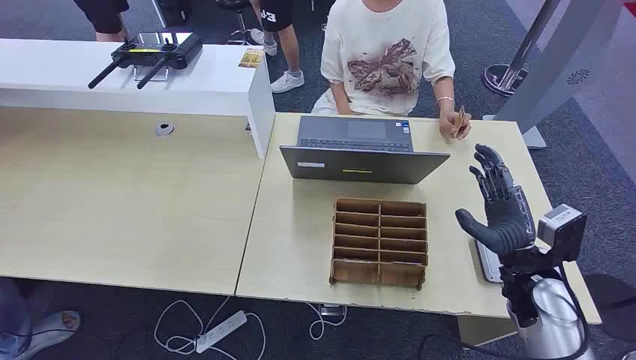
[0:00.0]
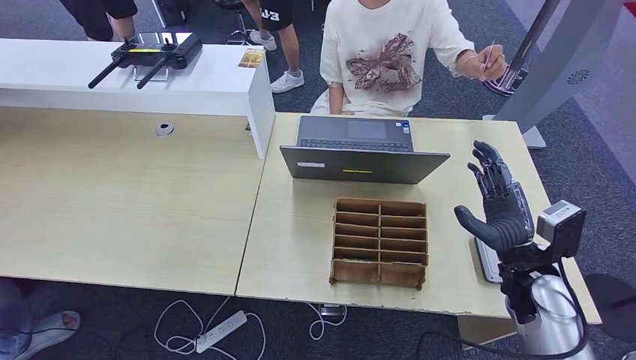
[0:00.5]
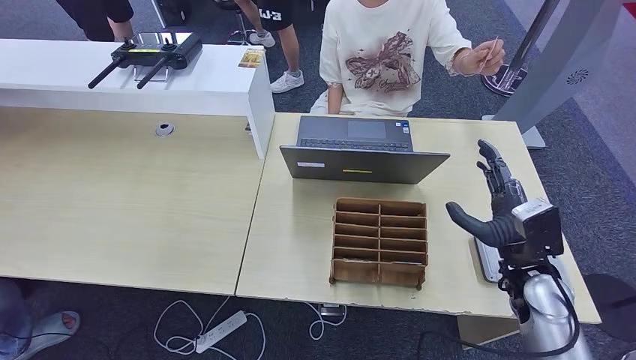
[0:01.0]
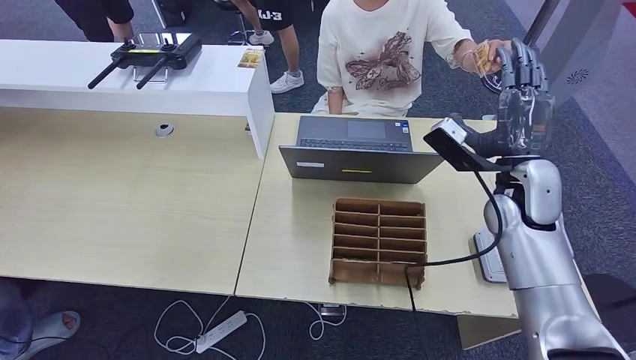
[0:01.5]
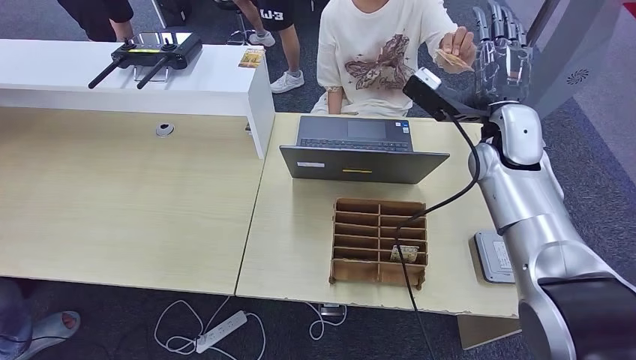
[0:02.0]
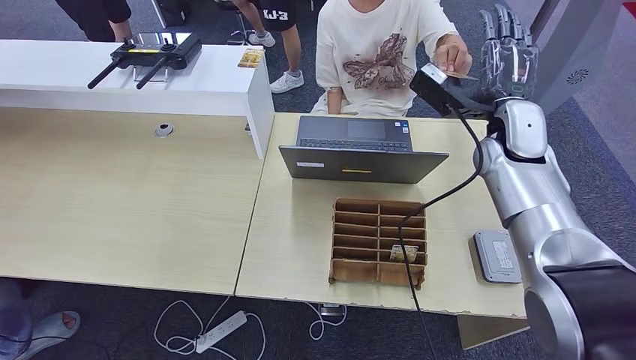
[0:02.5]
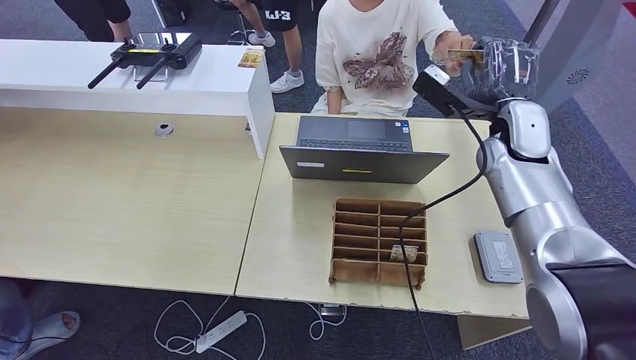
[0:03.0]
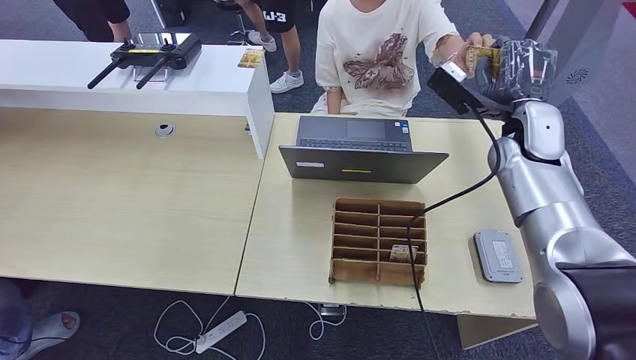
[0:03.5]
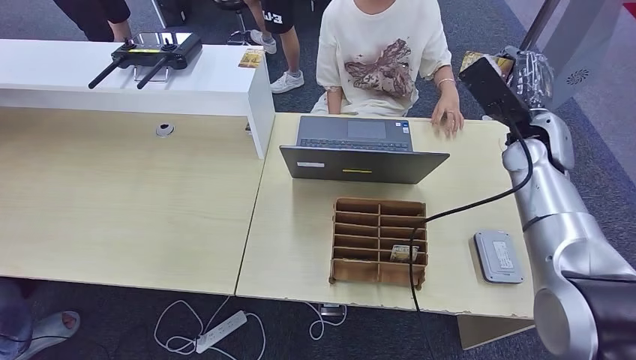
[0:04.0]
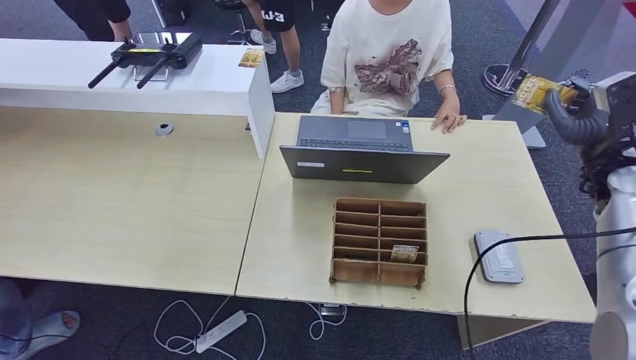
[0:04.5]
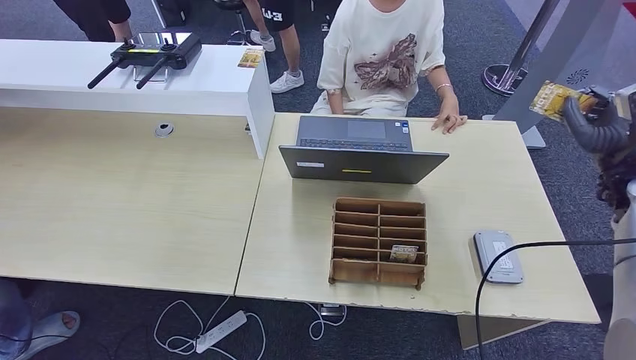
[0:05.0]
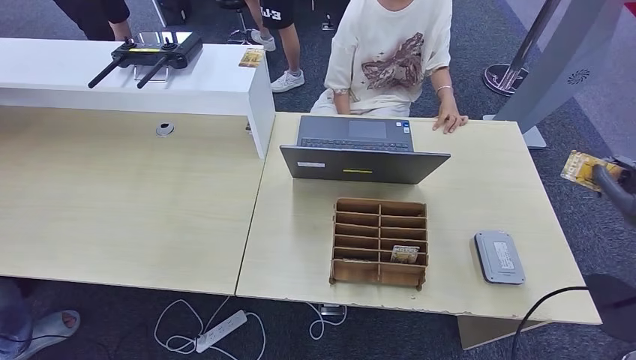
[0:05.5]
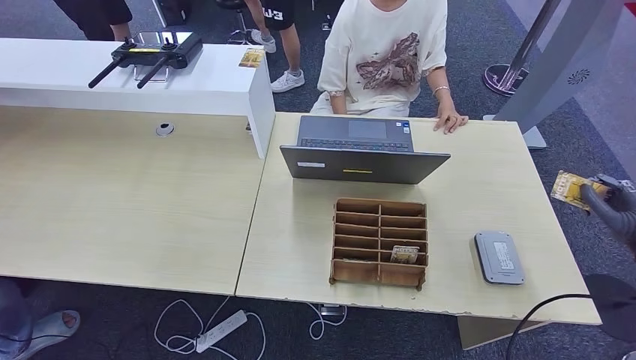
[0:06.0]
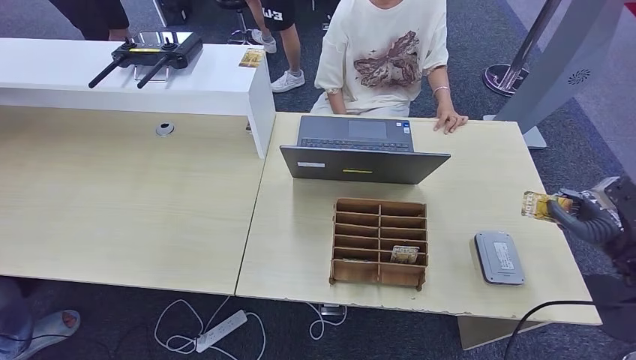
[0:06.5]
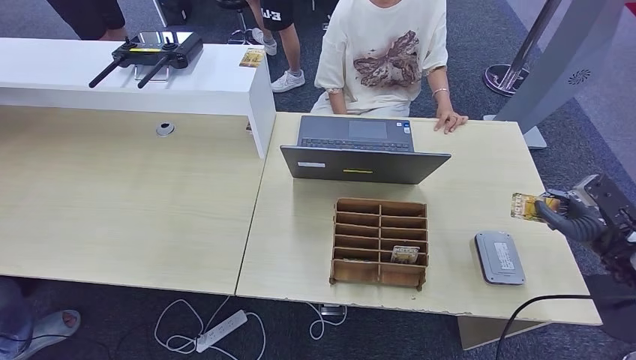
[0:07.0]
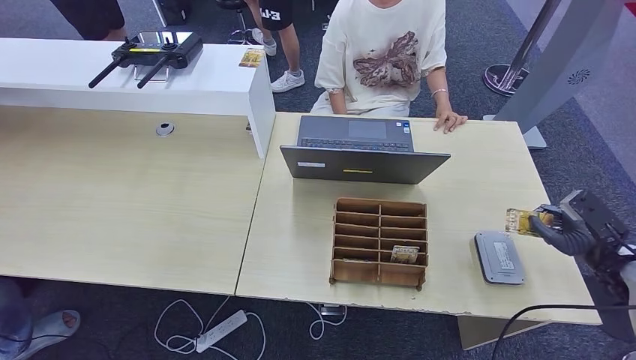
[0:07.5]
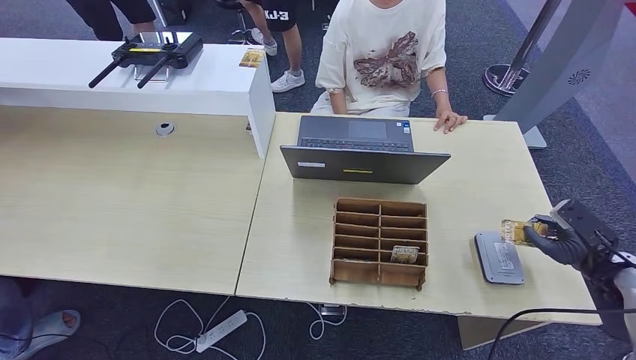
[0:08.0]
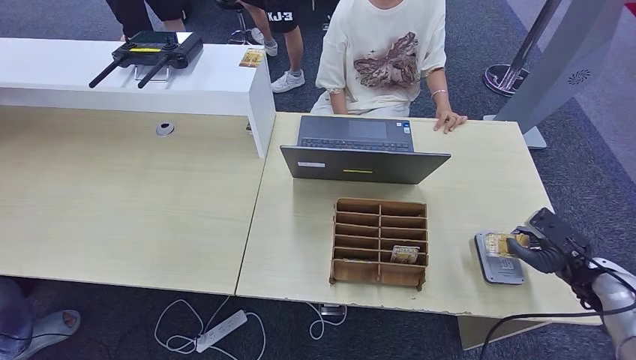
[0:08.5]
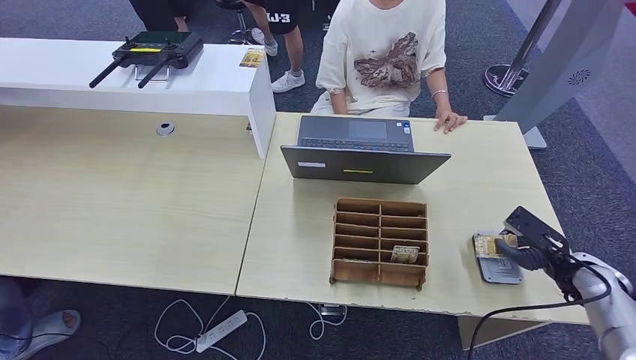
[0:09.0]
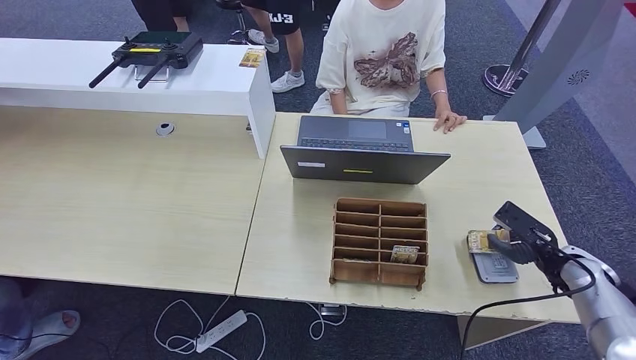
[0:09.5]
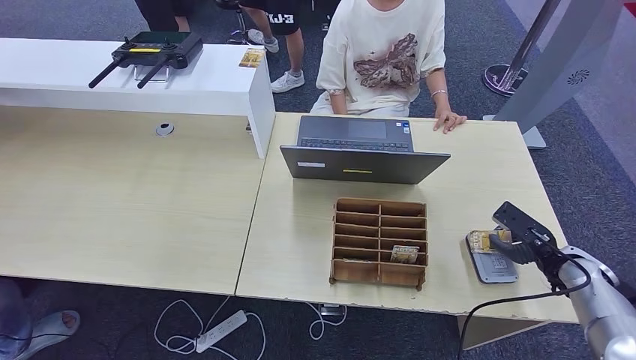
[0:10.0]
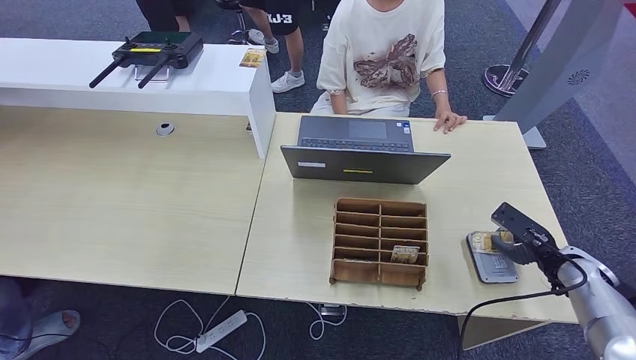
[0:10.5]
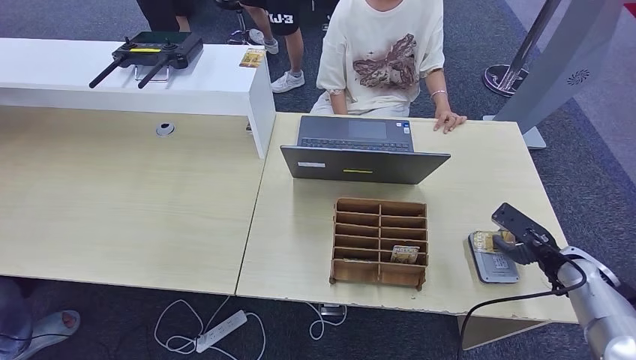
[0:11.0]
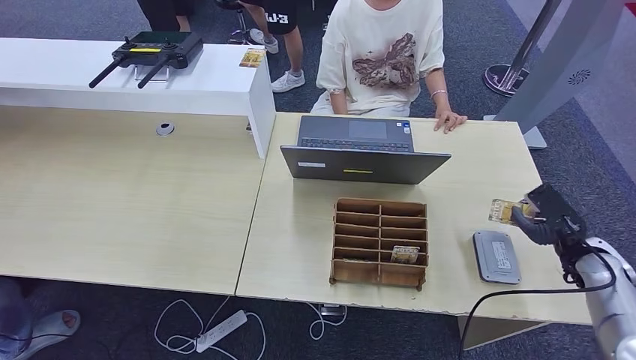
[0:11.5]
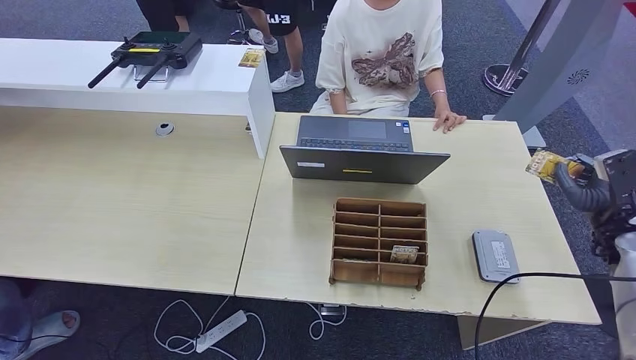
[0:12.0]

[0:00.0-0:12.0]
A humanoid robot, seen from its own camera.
Step, 0:00.0 to 0:04.5: Take the ID card from the person's hand.
Step, 0:05.0 to 0:10.5: Place the ID card on the card reader.
0:02.0 to 0:04.0: The right hand moves to the right, about 5 cm.
0:04.0 to 0:06.0: The right hand is displaced to the right, backward and downward by approximately 30 cm.
0:06.0 to 0:08.0: The right hand heads downward, covering roughly 5 cm.
0:08.0 to 0:10.0: The right hand heads to the left, covering roughly 5 cm.
0:10.0 to 0:12.0: The right hand shifts approximately 10 cm upward.

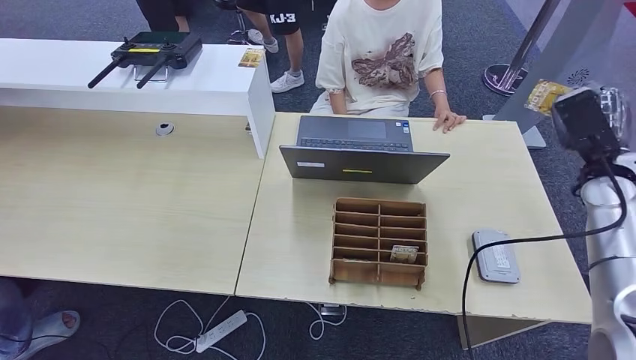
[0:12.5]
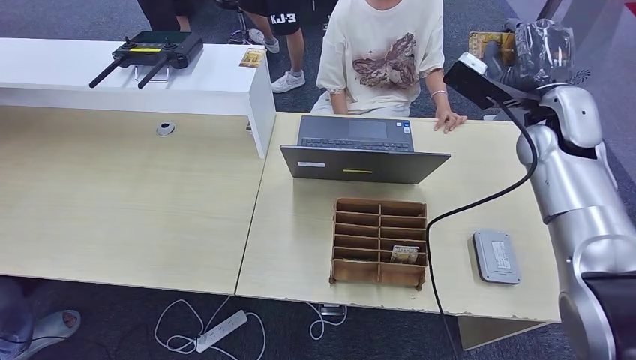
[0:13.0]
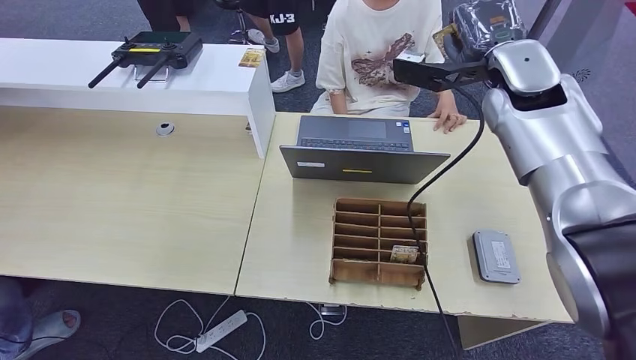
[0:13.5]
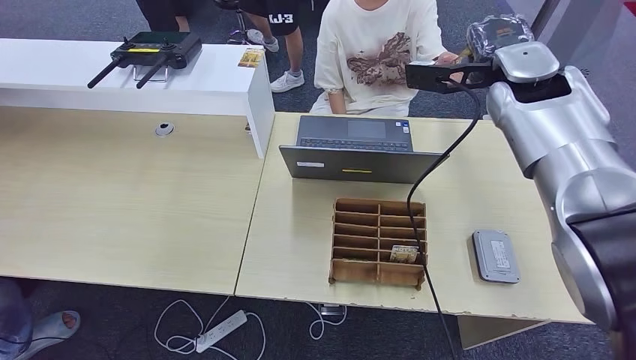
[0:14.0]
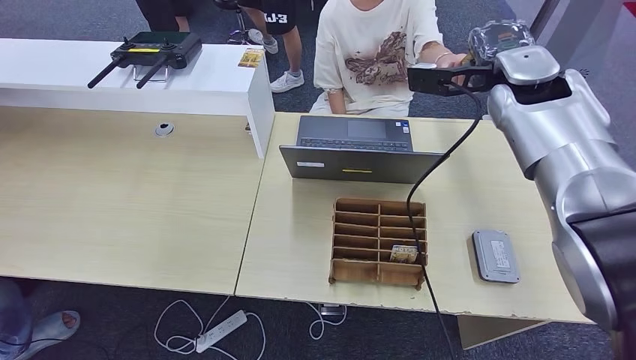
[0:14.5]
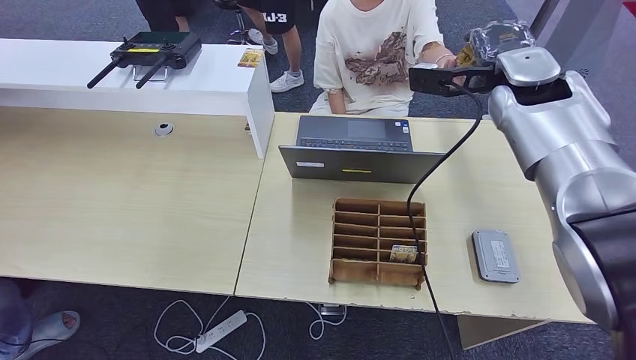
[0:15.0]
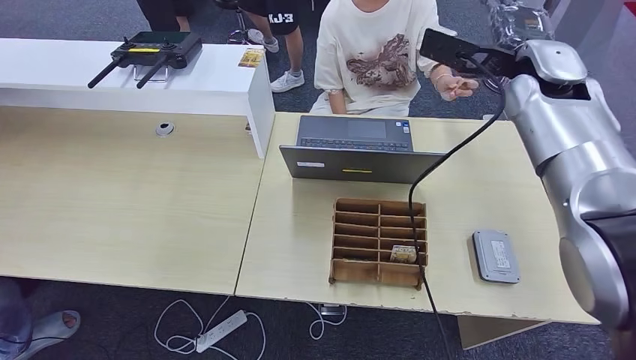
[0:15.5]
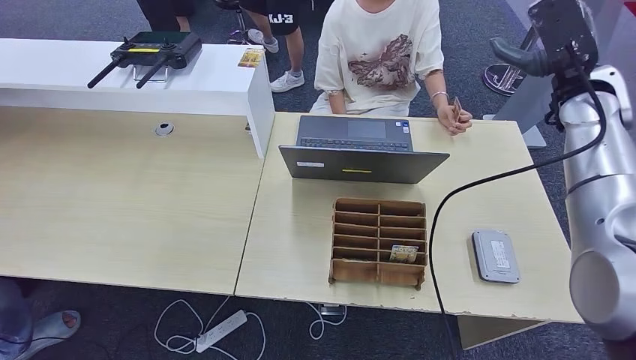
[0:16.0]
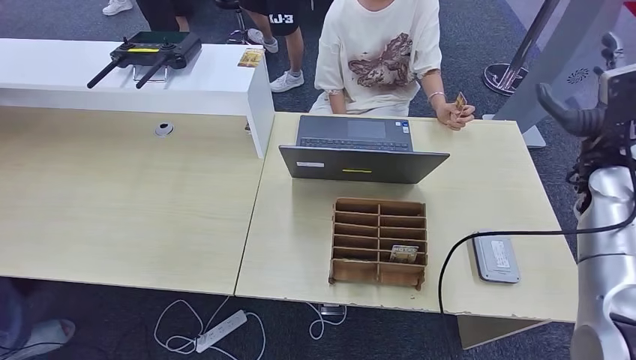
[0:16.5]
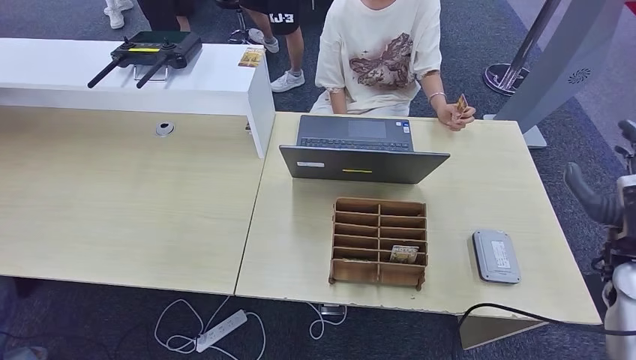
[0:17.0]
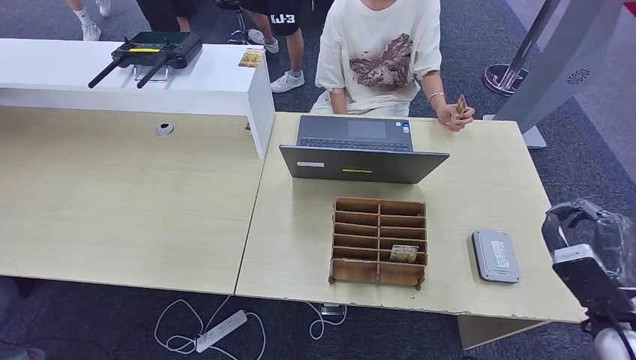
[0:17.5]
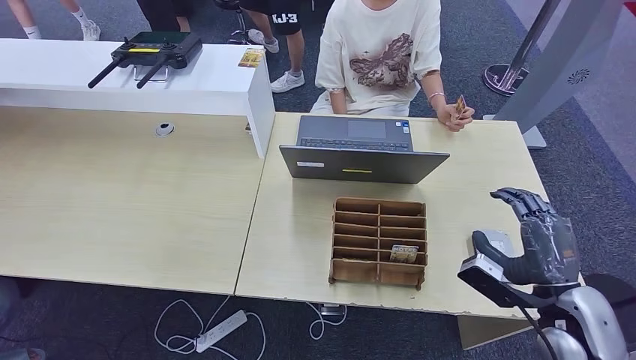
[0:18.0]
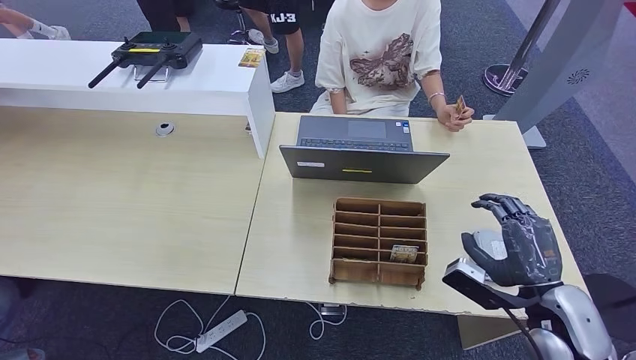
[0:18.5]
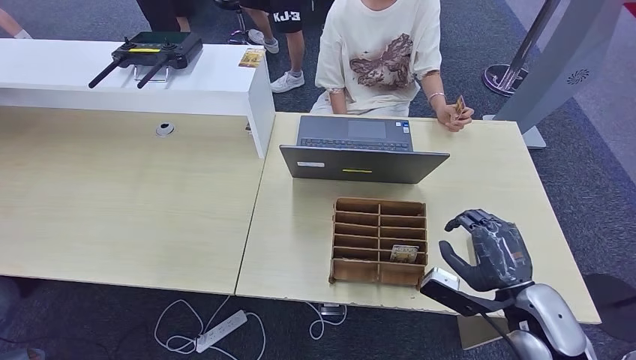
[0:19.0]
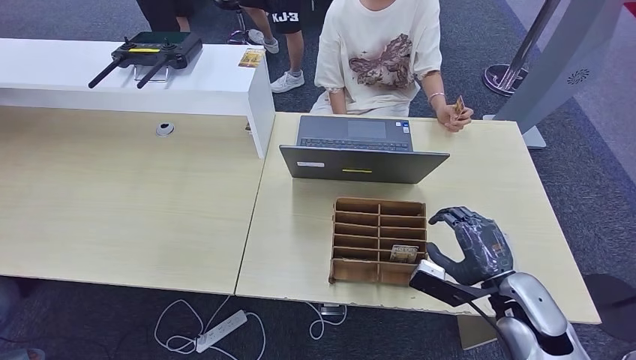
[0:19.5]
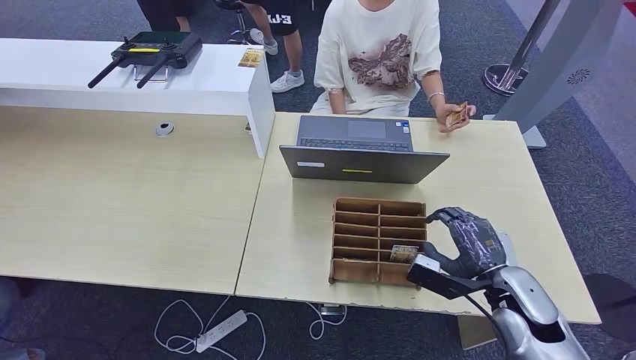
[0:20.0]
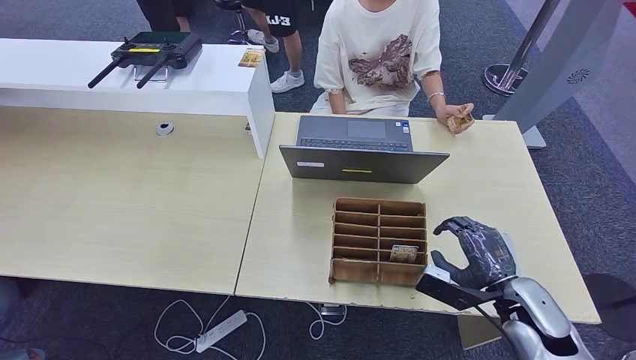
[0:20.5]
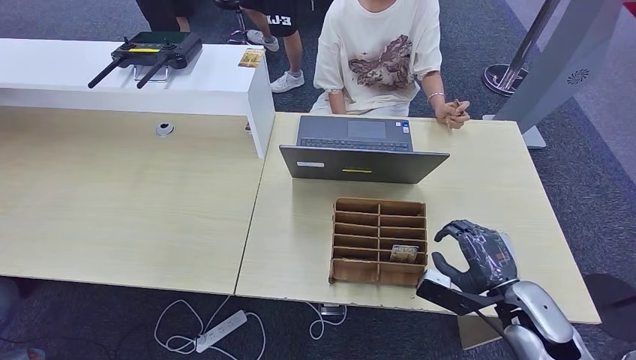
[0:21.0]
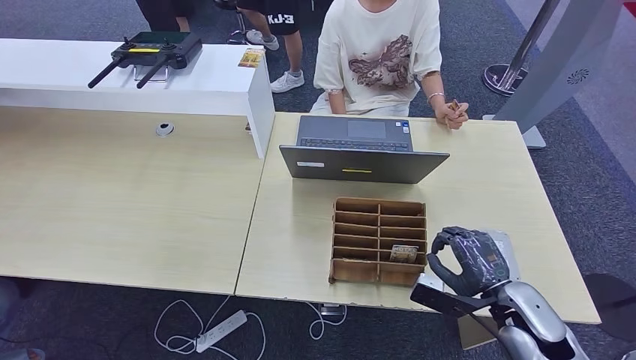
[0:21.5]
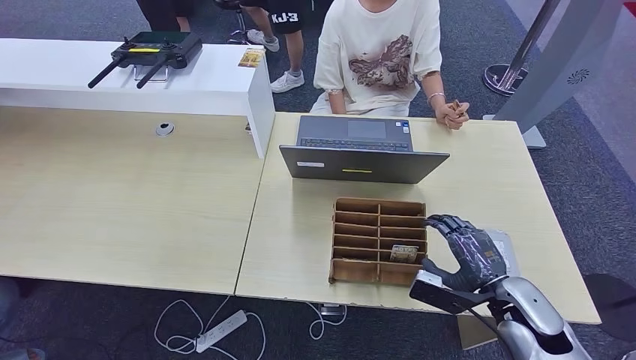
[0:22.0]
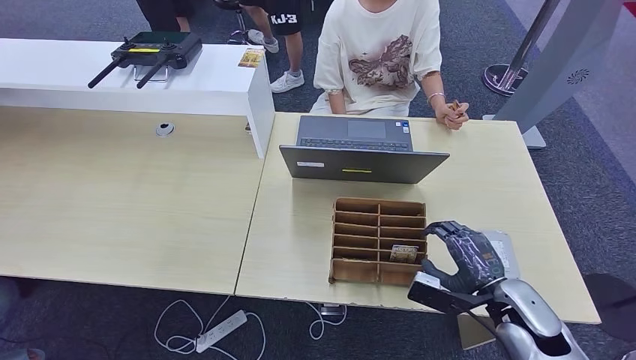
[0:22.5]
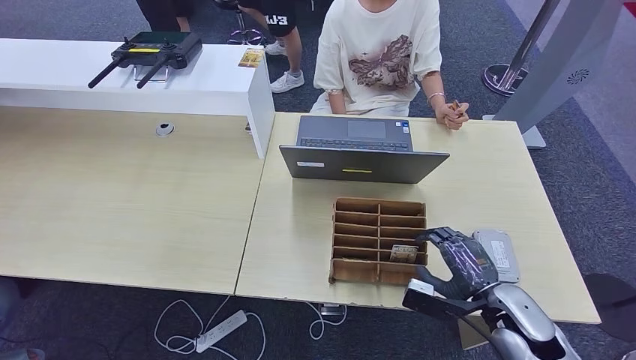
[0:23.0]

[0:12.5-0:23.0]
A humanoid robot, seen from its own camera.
Step, 0:12.5 to 0:15.5: Hand the ID card to the person.
0:12.5 to 0:14.5: The right hand is displaced to the left, upward and forward by approximately 25 cm.
0:14.5 to 0:16.5: The right hand heads to the right, downward and backward, covering roughly 20 cm.
0:16.5 to 0:19.0: The right hand is displaced backward, downward and to the left by some 25 cm.
0:19.0 to 0:23.0: The hands make only small movements.
